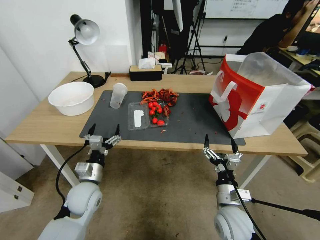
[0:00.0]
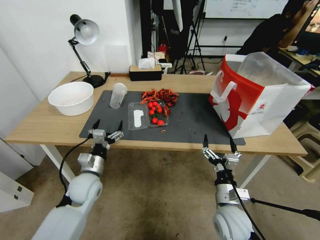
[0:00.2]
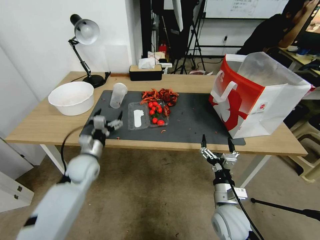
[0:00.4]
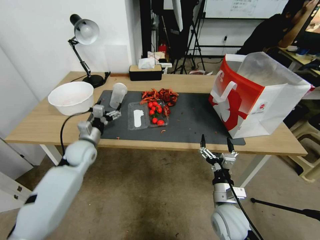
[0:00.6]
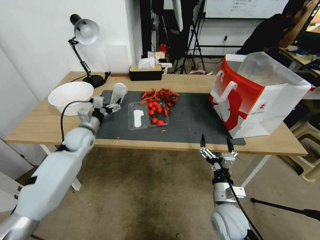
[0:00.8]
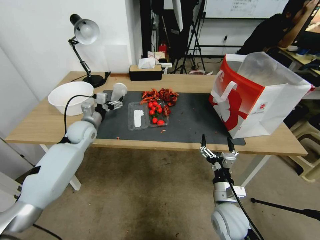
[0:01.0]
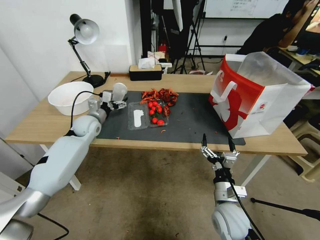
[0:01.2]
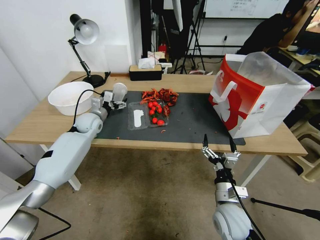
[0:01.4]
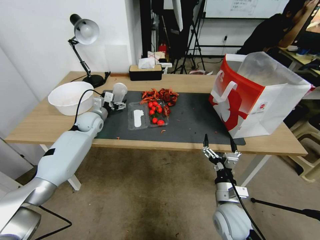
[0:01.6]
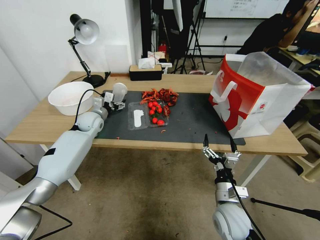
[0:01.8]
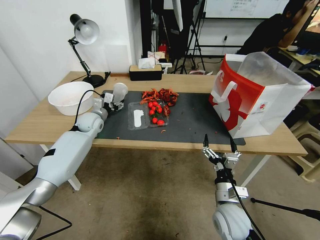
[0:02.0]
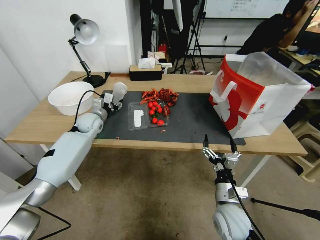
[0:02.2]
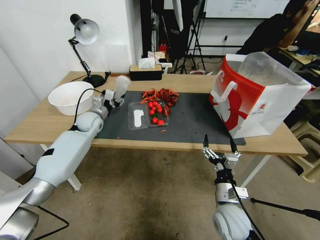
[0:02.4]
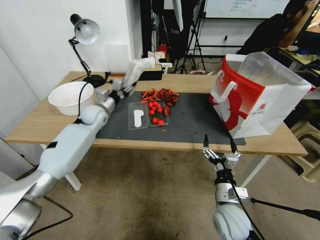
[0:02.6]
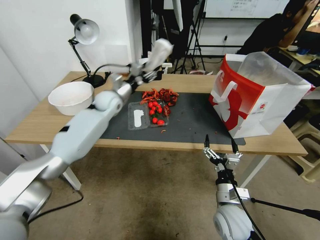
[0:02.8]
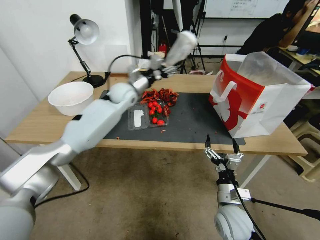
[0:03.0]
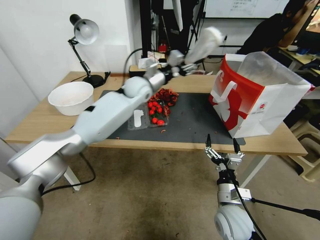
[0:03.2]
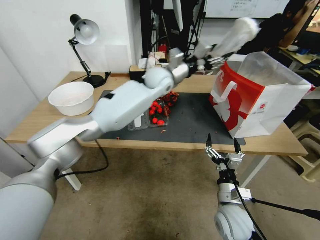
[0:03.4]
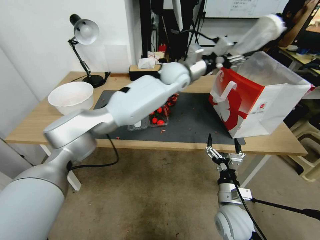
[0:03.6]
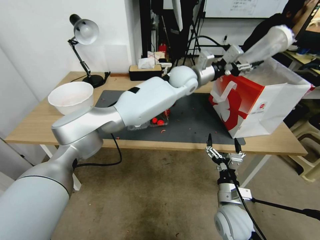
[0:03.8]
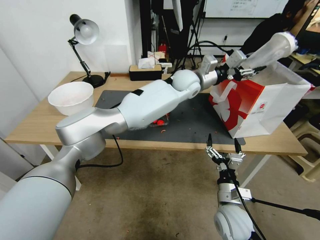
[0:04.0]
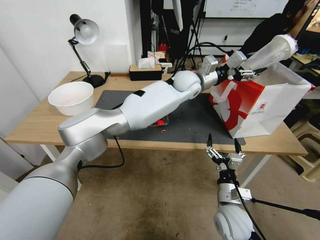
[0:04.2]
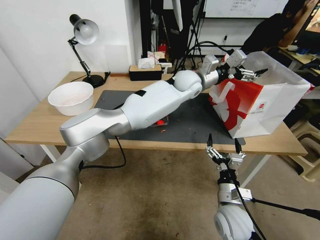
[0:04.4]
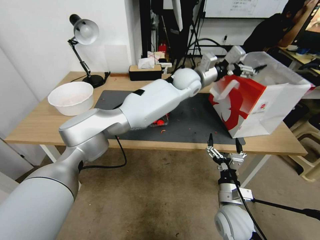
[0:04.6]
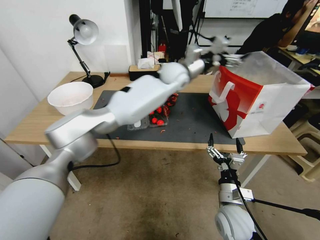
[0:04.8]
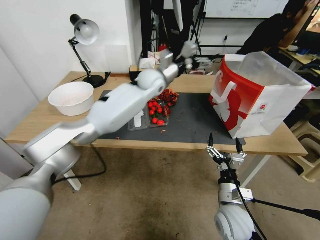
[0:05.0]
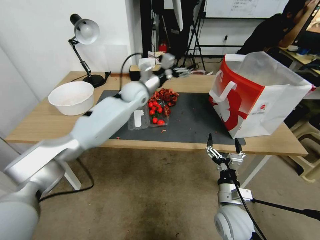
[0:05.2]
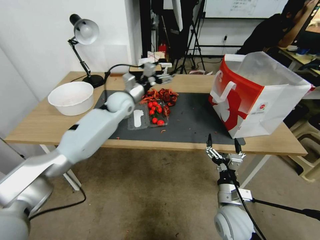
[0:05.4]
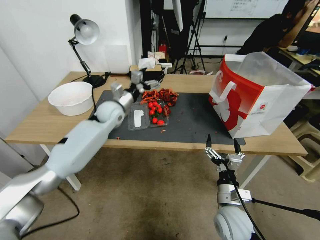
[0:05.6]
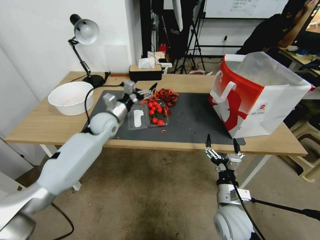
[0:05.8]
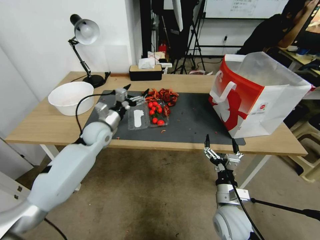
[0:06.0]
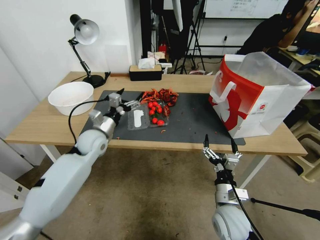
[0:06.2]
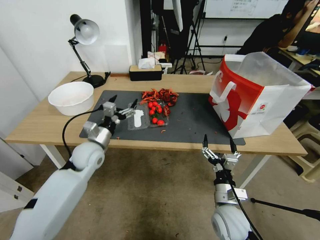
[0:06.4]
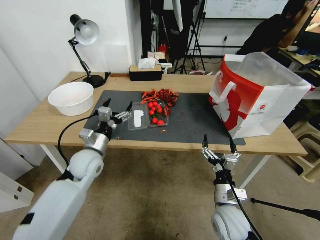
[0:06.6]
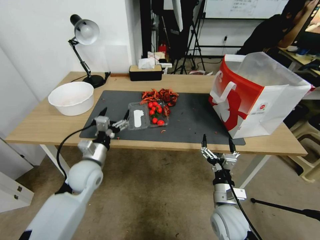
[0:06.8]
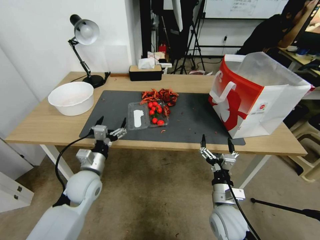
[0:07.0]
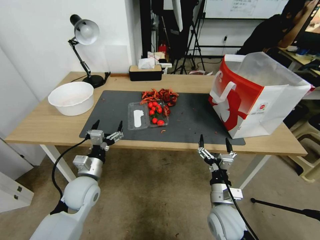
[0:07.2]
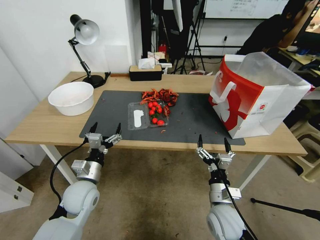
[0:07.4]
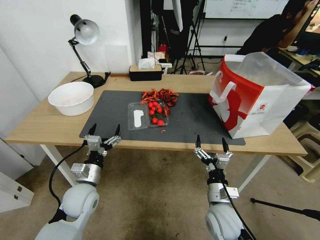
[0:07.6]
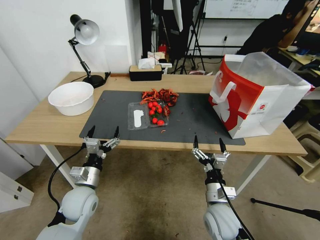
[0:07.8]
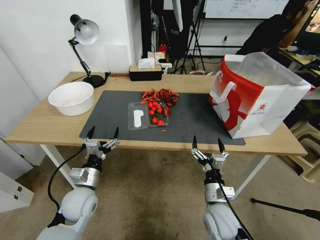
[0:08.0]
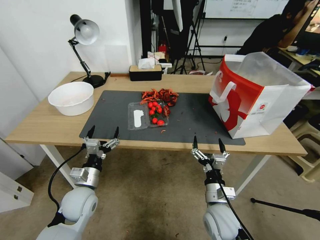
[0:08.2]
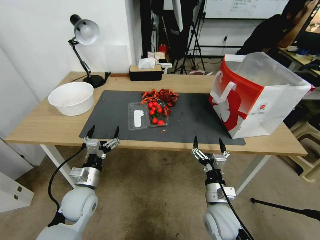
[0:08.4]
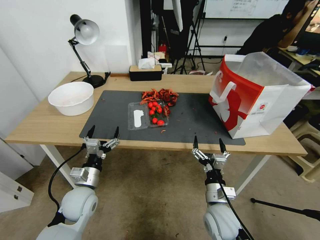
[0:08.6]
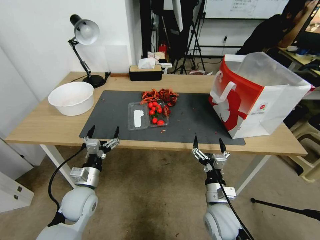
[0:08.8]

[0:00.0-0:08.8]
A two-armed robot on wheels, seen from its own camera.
0:00.0 to 0:01.4: The left gripper shifts about 25 cm forward.
0:01.4 to 0:03.0: The left gripper heads to the right and upward, covering about 20 cm, and closes its fingers.
0:03.0 to 0:04.4: The left gripper travels to the right by approximately 25 cm, and opens its fingers.
0:04.4 to 0:05.8: The left gripper is displaced to the left and downward by about 35 cm.
0:05.8 to 0:07.4: The left gripper shifts approximately 20 cm backward.
0:07.4 to 0:08.8: The grippers make only small movements.

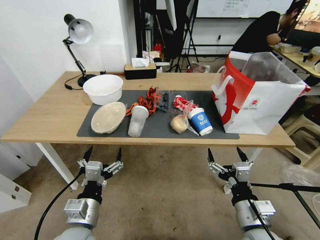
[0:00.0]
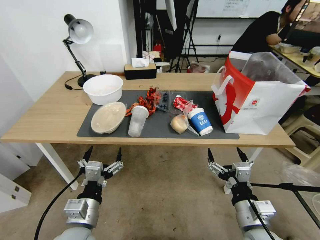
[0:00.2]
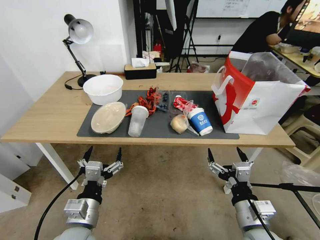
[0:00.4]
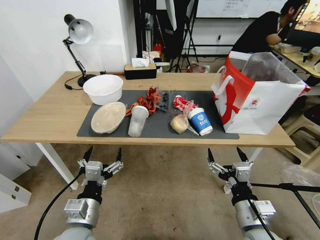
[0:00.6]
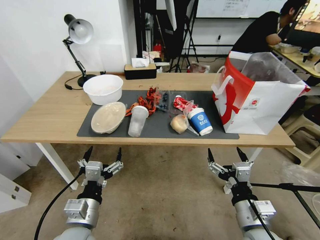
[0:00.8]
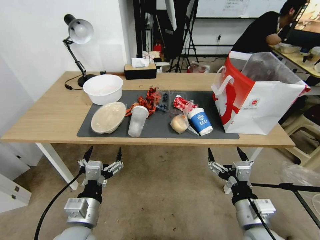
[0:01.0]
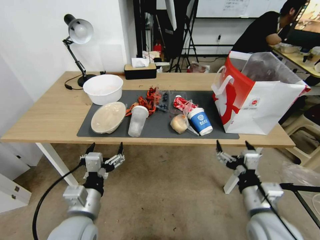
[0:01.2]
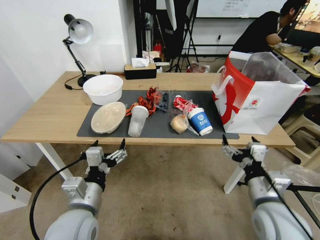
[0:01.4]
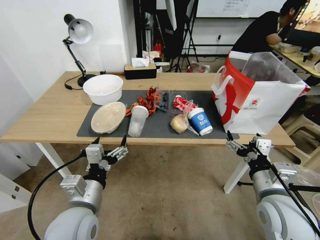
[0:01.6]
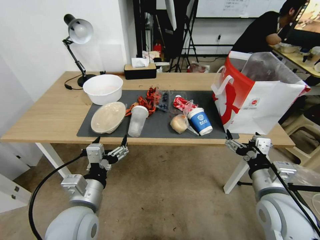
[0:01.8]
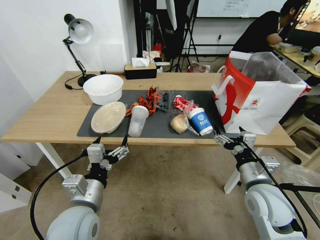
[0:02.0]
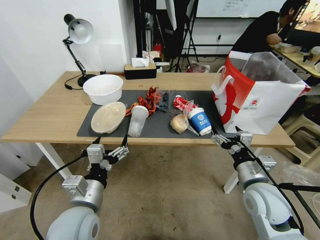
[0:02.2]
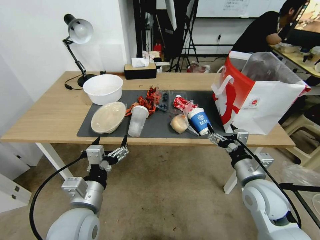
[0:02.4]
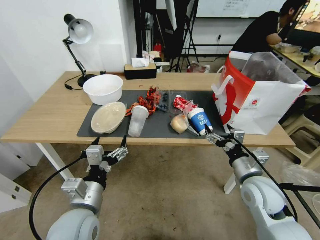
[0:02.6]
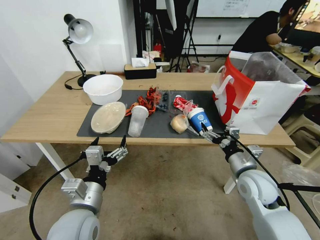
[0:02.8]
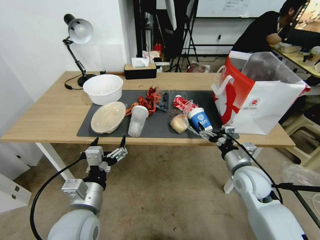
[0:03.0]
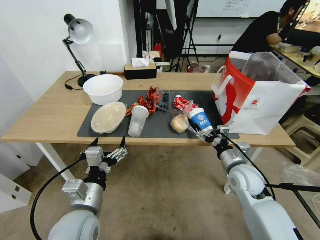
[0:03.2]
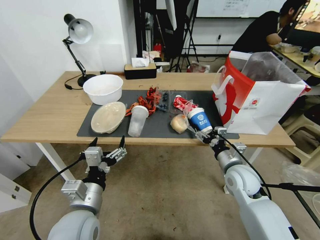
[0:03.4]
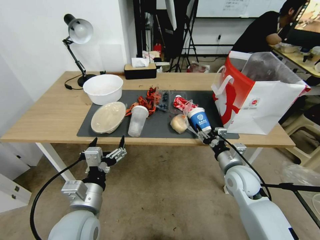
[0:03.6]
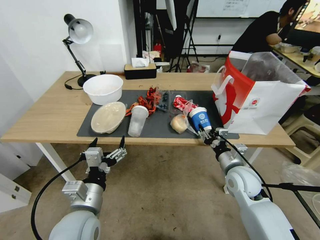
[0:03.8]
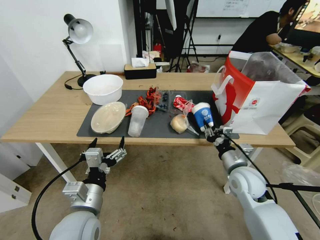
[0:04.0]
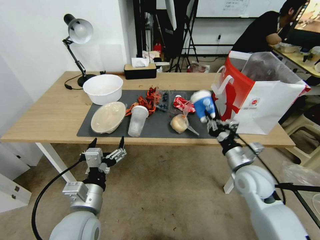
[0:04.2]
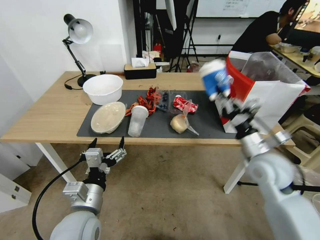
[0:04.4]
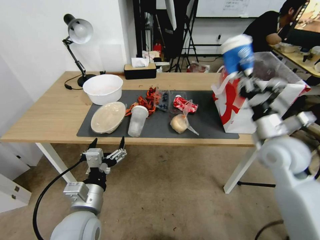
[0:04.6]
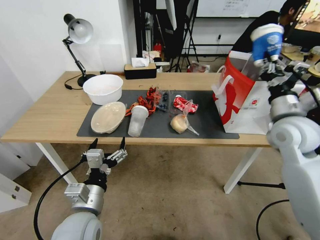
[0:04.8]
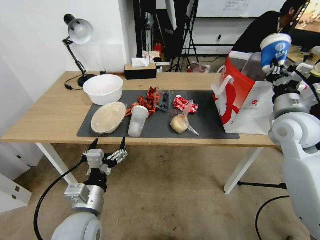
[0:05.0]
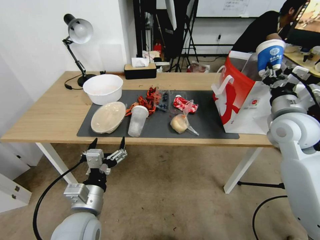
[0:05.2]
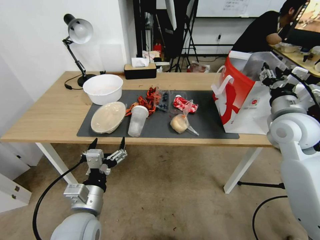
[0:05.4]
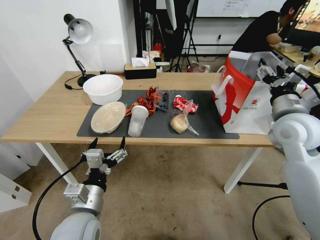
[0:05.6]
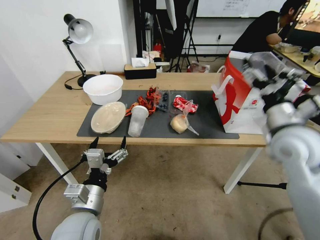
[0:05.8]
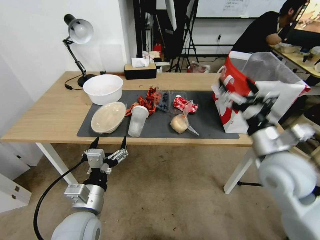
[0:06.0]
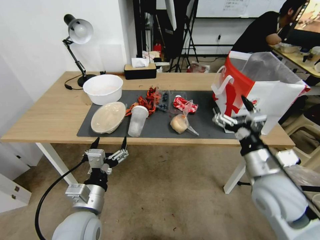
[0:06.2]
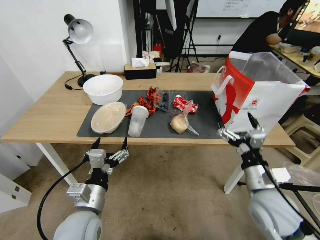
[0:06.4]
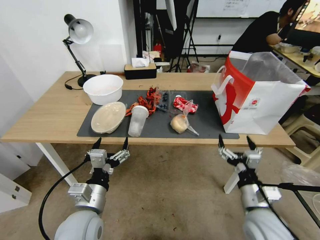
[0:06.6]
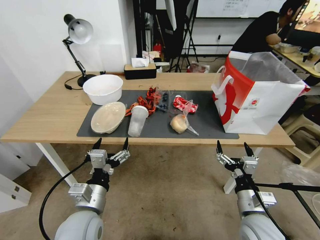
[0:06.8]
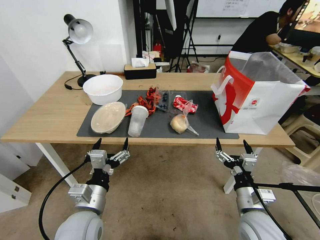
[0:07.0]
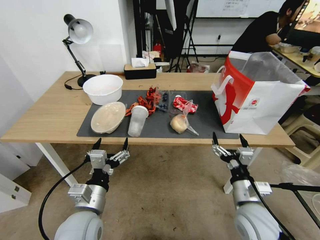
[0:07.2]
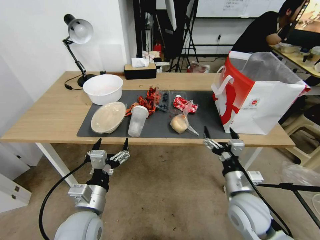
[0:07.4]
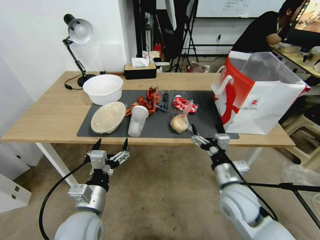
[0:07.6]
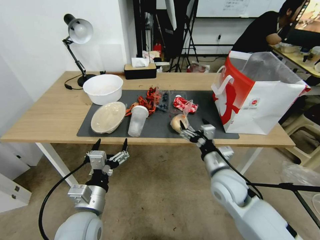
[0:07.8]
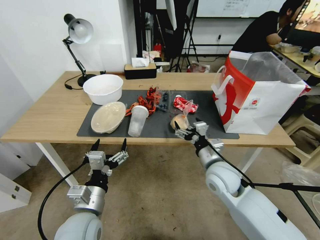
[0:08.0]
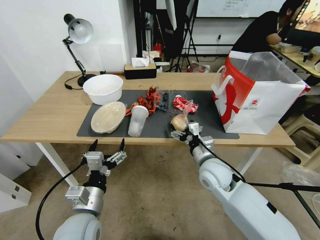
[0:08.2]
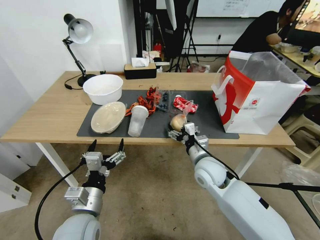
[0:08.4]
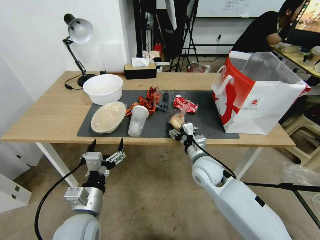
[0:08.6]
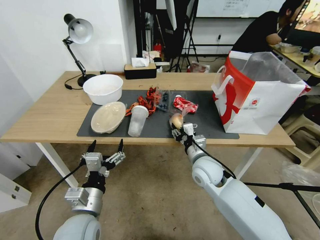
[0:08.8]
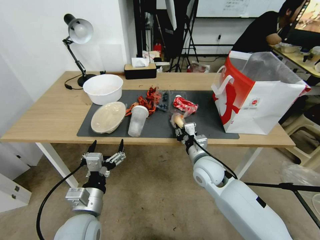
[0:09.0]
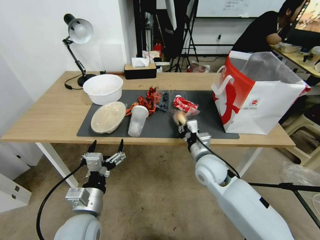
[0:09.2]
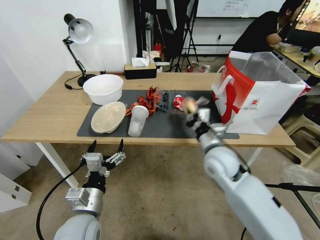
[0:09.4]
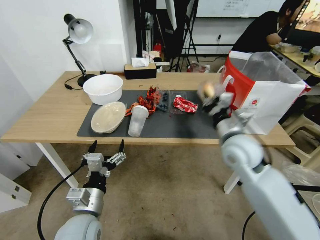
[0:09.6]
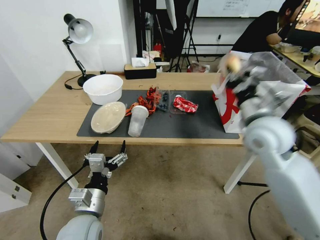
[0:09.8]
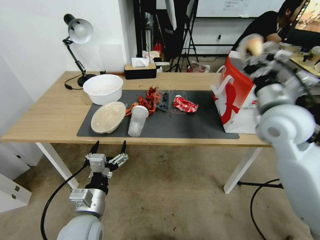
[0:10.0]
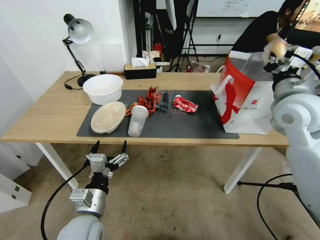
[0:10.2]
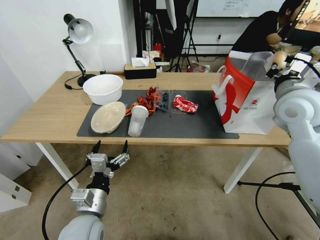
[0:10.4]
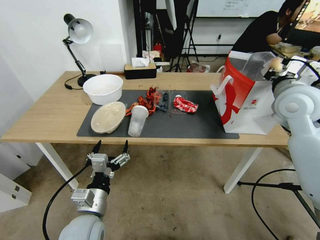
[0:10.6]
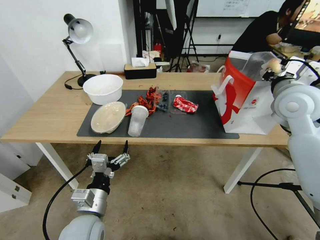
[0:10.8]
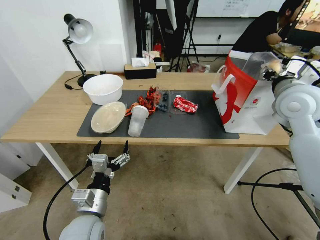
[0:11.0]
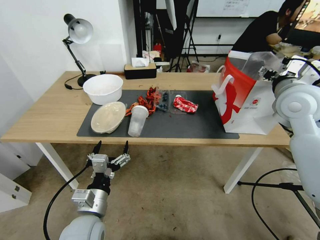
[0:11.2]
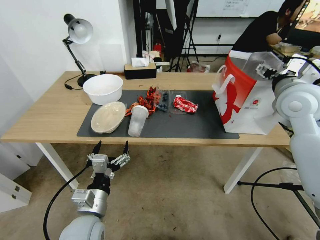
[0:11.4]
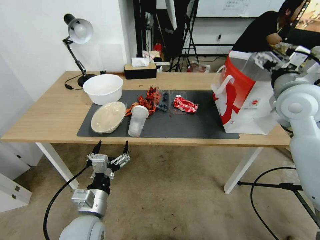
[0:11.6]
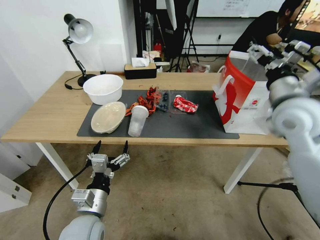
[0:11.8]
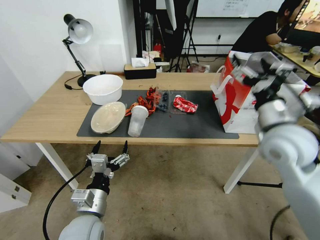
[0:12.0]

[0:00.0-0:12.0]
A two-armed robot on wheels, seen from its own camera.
0:01.6 to 0:03.0: The right gripper moves forward and downward, approximately 15 cm.
0:03.0 to 0:04.4: The right gripper shifts approximately 5 cm upward, and closes.
0:04.4 to 0:06.0: The right gripper is displaced upward by roughly 5 cm, and opens its fingers.
0:06.0 to 0:07.6: The right gripper heads downward and to the left, covering some 15 cm.
0:07.6 to 0:09.0: The right gripper heads forward and to the left, covering about 10 cm, and closes.
0:09.0 to 0:10.4: The right gripper is displaced upward and to the right by about 30 cm.
0:10.4 to 0:12.0: The right gripper goes about 10 cm backward and downward, and opens its fingers.

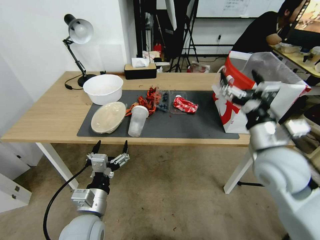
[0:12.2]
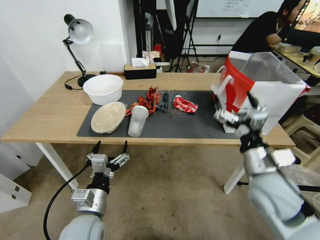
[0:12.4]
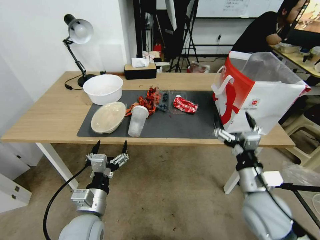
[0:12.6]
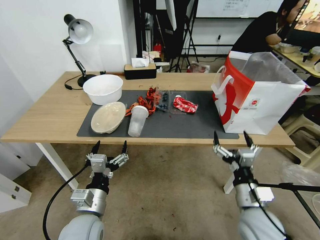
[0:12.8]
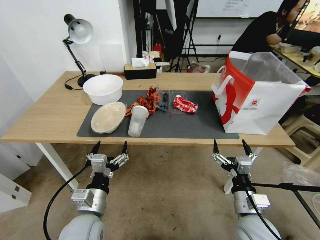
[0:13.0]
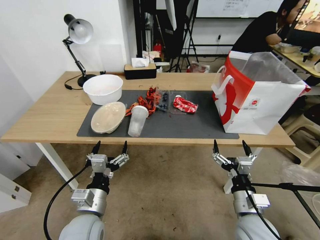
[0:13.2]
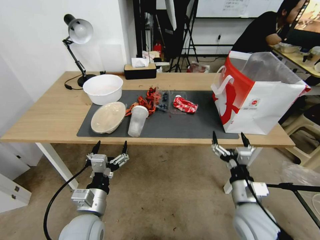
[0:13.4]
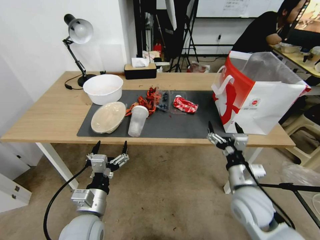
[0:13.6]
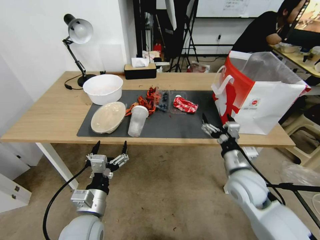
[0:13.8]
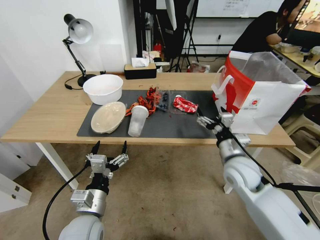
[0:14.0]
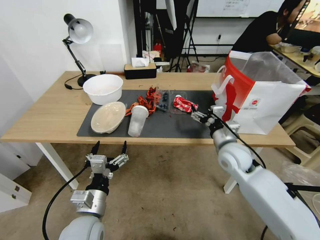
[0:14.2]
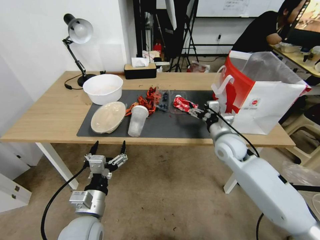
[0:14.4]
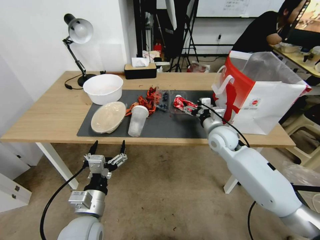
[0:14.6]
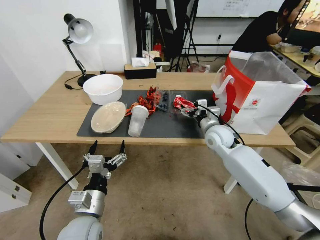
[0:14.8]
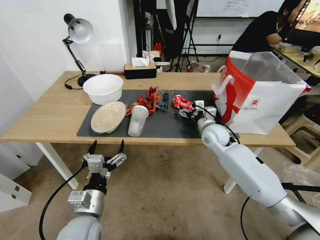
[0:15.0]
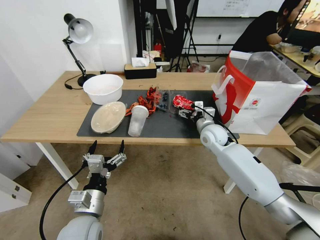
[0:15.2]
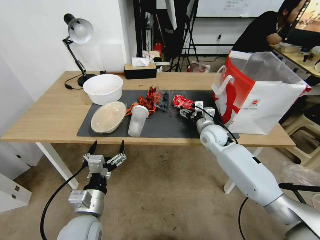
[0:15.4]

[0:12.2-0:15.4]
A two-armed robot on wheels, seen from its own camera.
0:12.2 to 0:13.8: The right gripper travels downward by about 15 cm.
0:13.8 to 0:15.4: The right gripper travels forward by roughly 20 cm.
